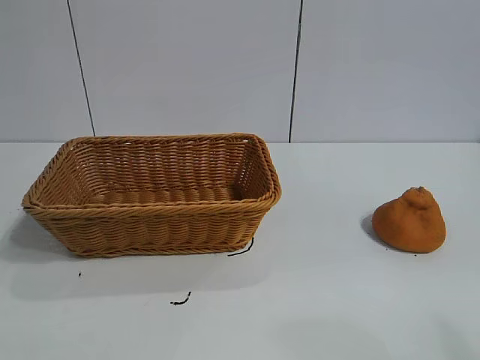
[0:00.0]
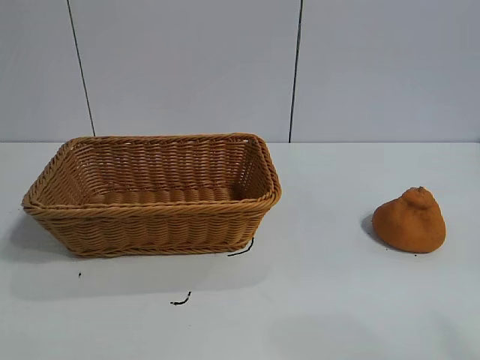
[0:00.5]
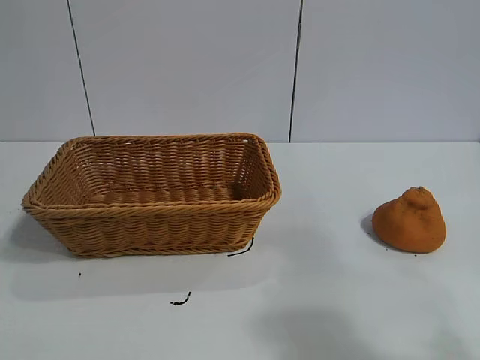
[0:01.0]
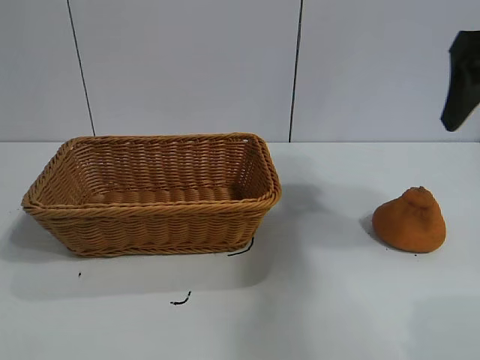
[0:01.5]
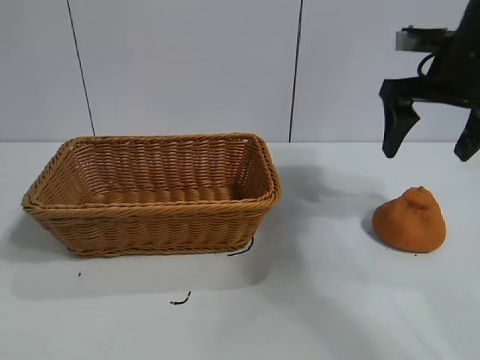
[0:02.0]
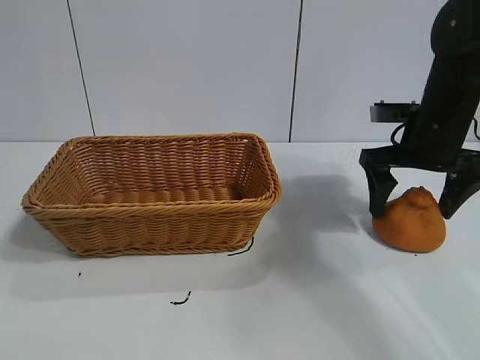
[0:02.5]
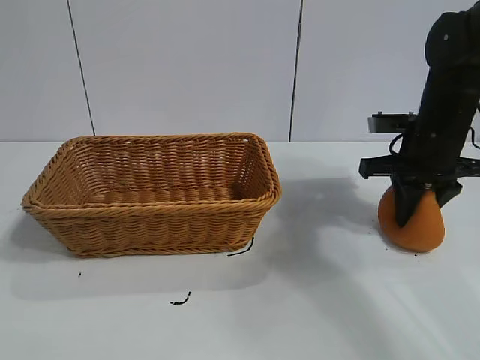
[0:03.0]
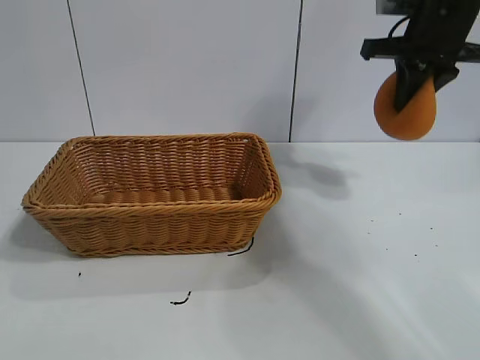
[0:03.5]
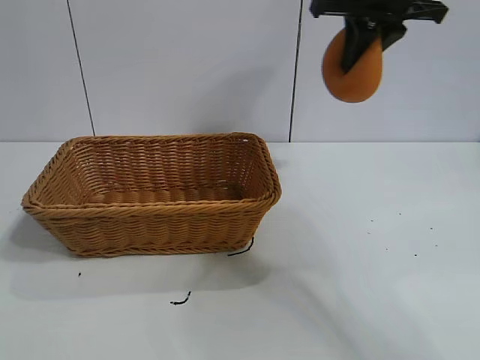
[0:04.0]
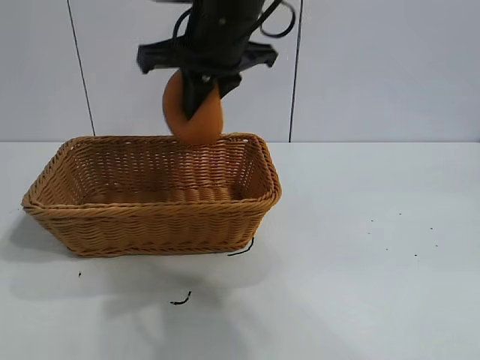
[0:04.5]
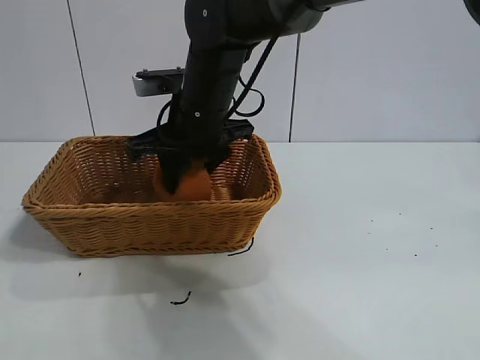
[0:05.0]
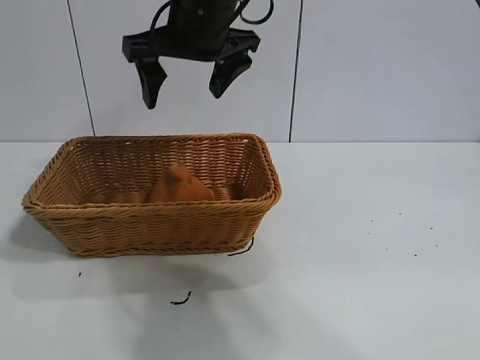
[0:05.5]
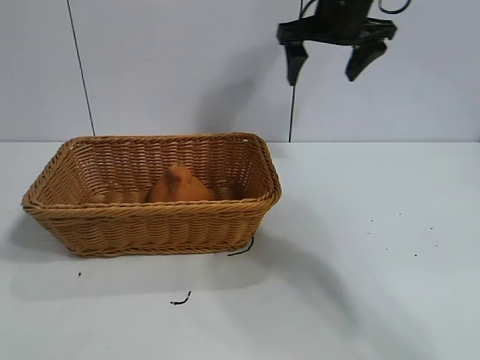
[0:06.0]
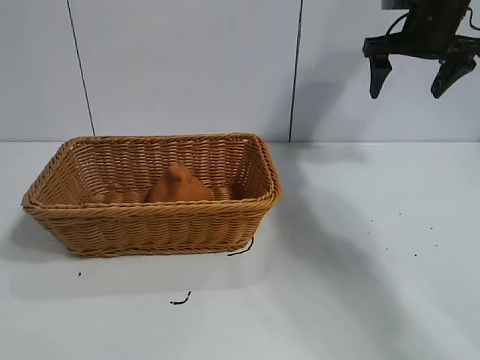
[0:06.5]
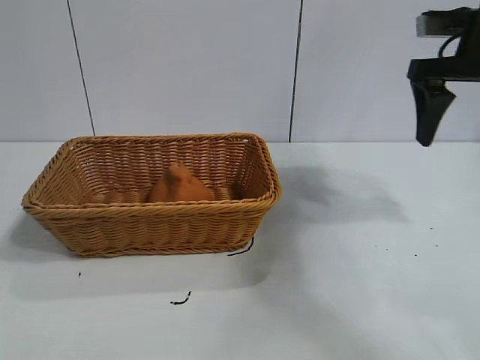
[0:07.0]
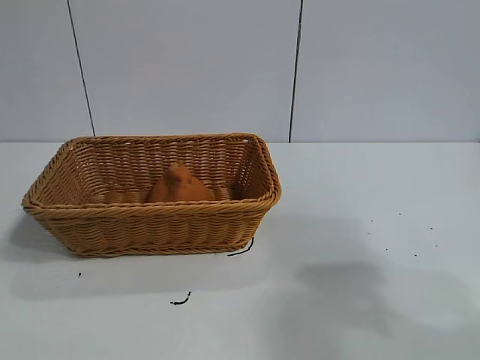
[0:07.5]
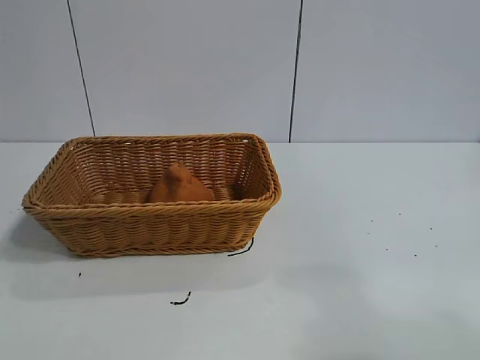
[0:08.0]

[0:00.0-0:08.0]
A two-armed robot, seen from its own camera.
Task of the whole recording: pick up the orange and put it into the basket.
Step, 0:01.0 to 0:03.0: Grasp the orange with right gripper.
Step, 0:03.5 to 0:05.0: Place the orange in the basket with right gripper.
